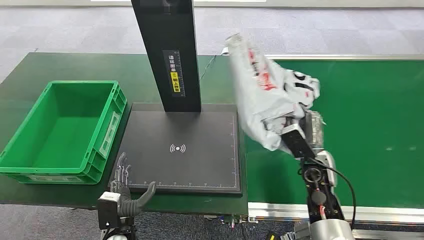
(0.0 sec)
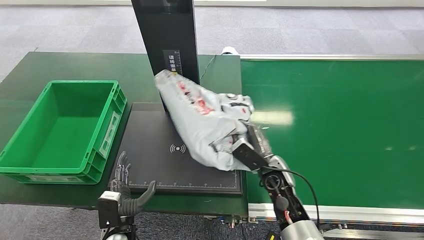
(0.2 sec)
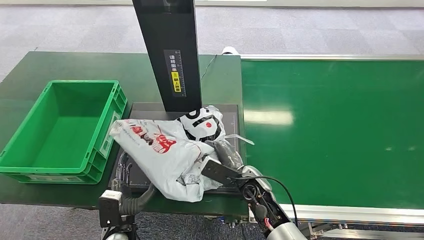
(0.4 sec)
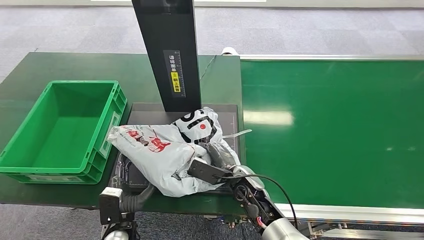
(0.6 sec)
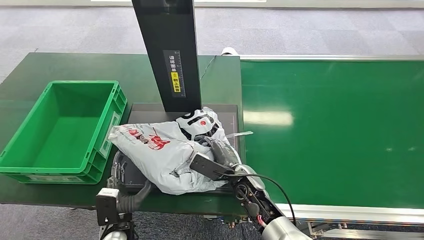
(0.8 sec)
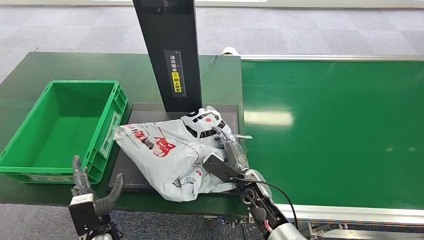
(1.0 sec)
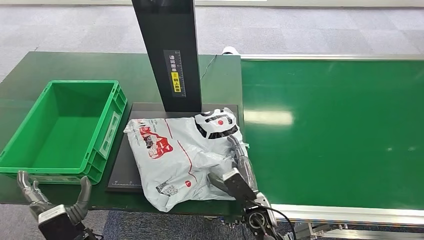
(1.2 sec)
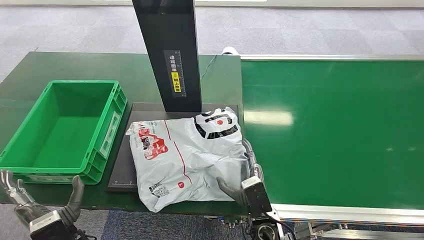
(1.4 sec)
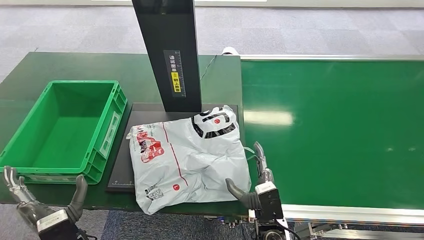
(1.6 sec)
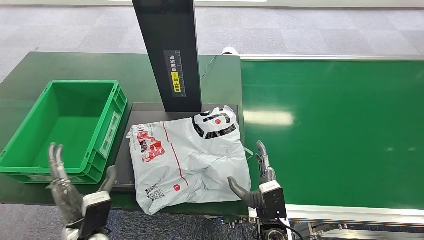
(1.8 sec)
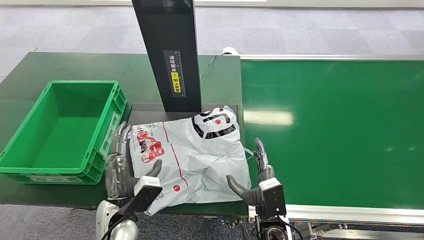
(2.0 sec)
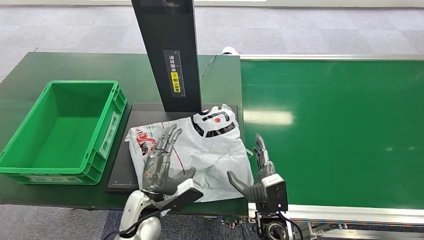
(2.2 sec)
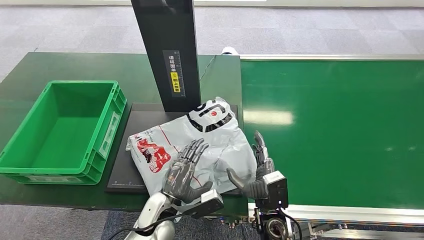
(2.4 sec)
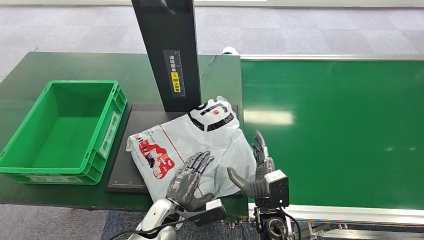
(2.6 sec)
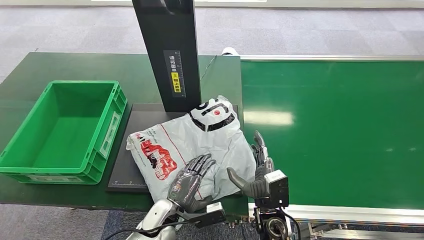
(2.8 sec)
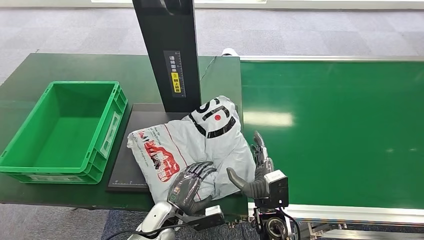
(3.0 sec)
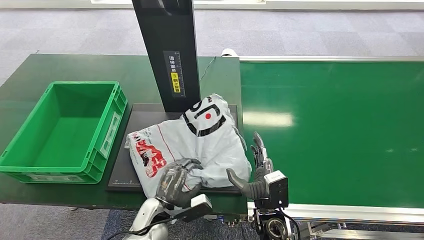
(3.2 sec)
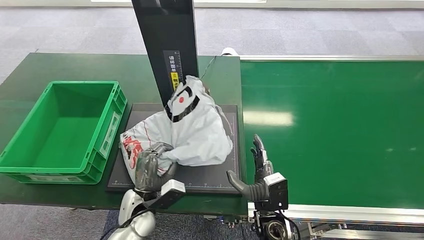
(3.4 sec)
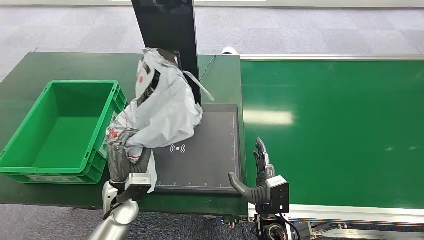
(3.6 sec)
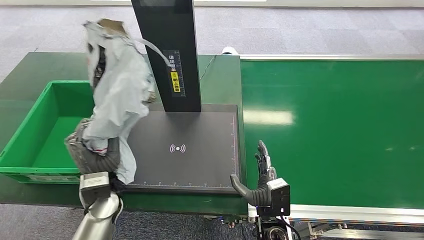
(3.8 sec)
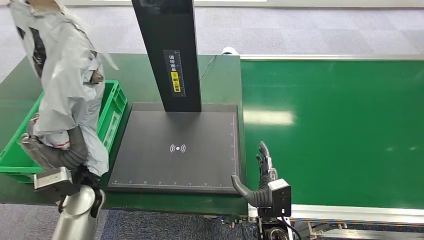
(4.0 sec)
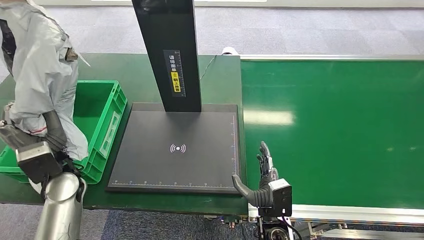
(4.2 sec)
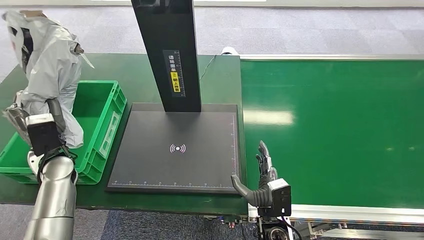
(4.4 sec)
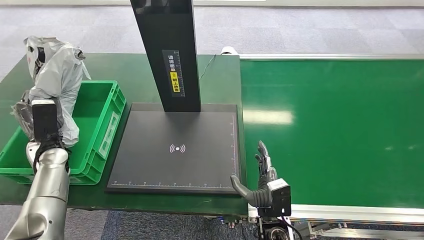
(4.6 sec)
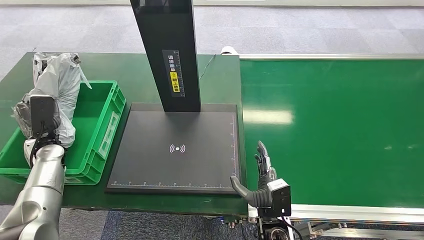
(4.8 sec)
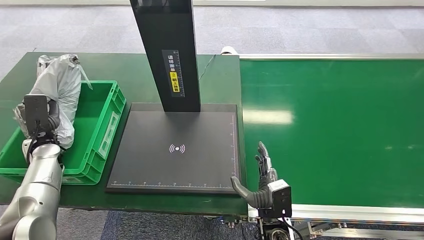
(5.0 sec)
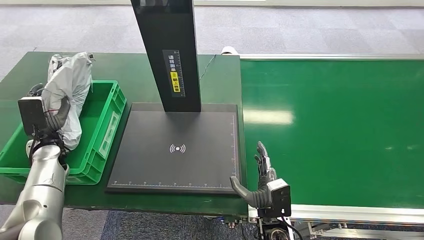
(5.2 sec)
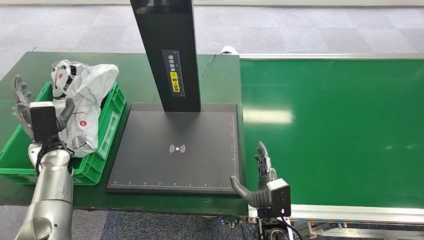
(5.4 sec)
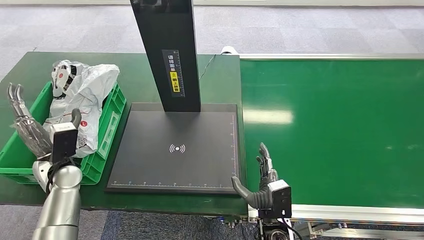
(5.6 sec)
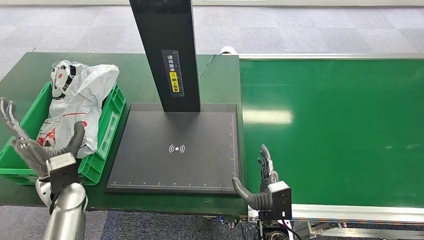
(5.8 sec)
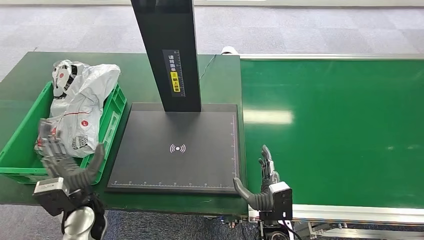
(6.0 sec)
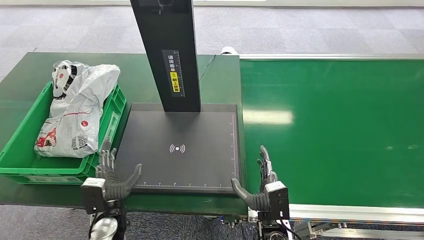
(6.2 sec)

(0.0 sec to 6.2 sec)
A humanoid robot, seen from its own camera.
Step, 4.0 sec - 4.2 sec: Pick up the package from the inbound machine.
1.6 sec - 3.2 sec: The left hand heads to the right, forward and downward, covering about 15 cm.
4.6 sec - 6.2 sec: The left hand moves to the right, backward and downward, some 25 cm.

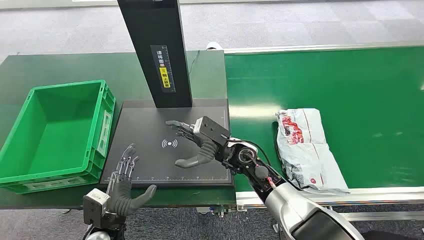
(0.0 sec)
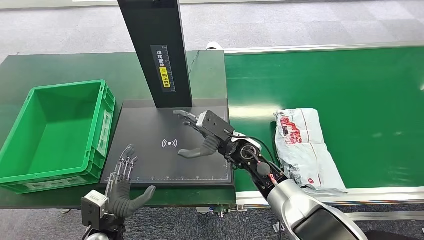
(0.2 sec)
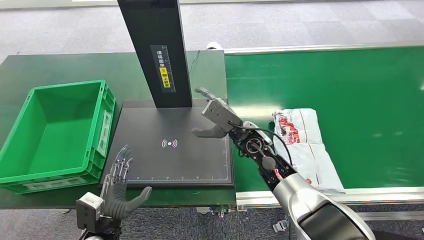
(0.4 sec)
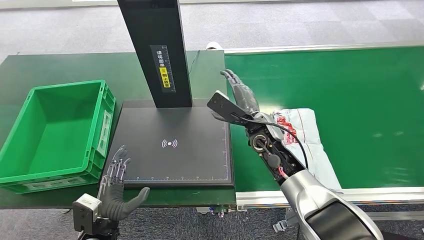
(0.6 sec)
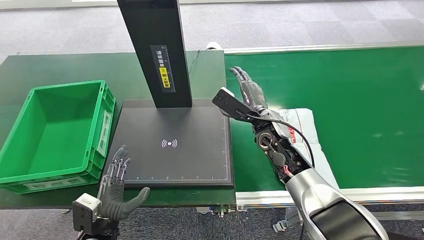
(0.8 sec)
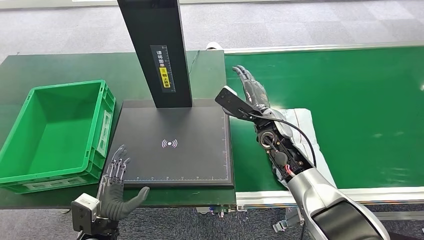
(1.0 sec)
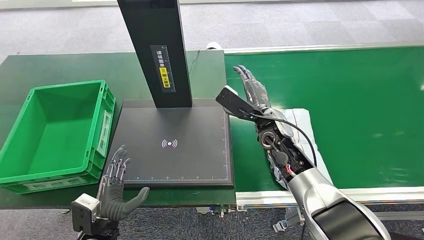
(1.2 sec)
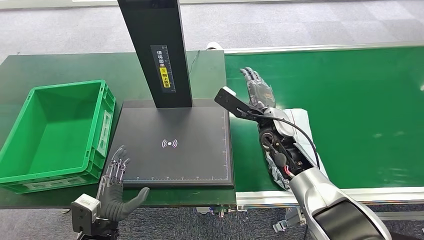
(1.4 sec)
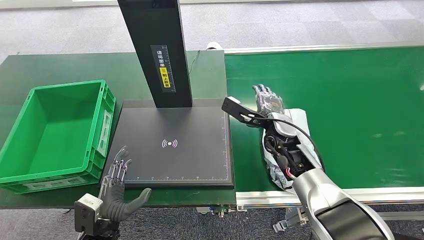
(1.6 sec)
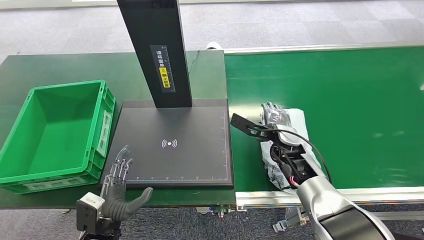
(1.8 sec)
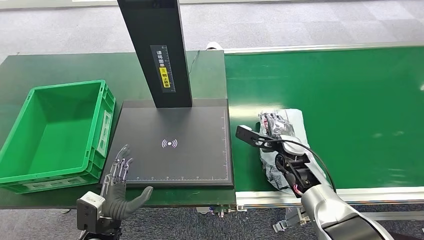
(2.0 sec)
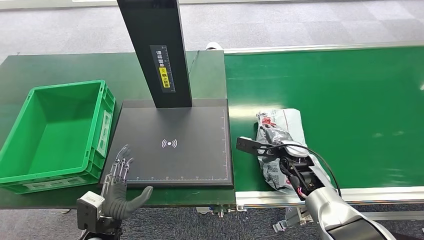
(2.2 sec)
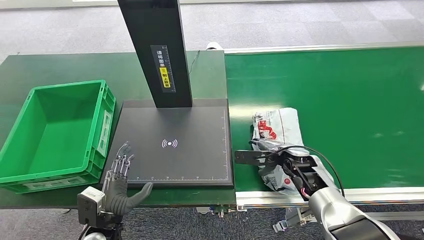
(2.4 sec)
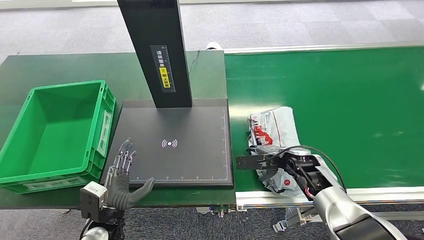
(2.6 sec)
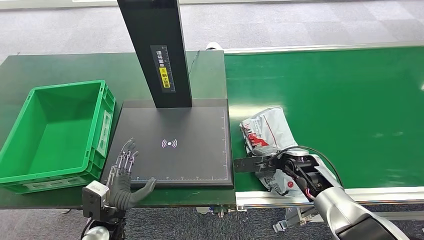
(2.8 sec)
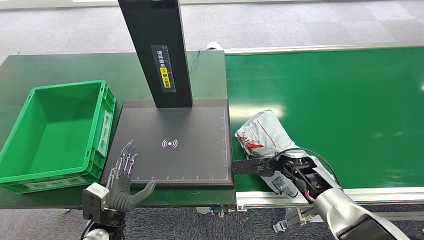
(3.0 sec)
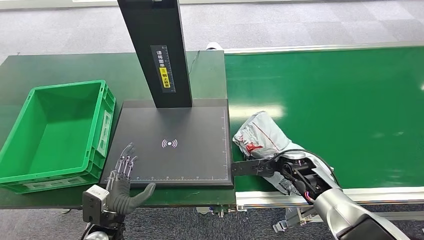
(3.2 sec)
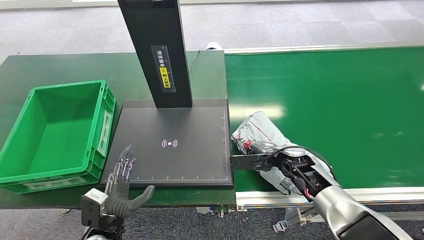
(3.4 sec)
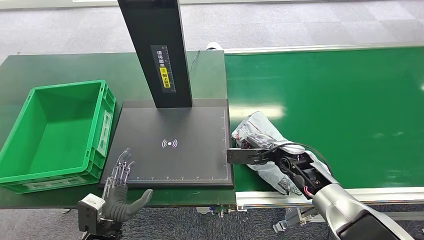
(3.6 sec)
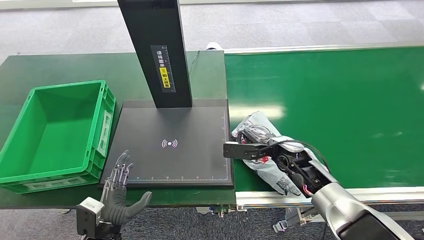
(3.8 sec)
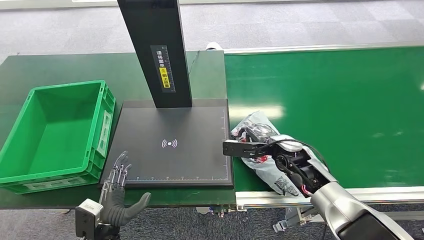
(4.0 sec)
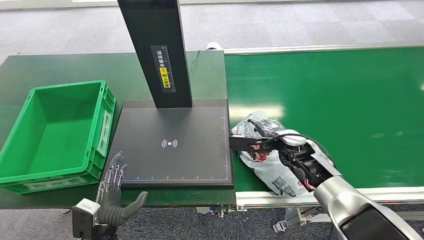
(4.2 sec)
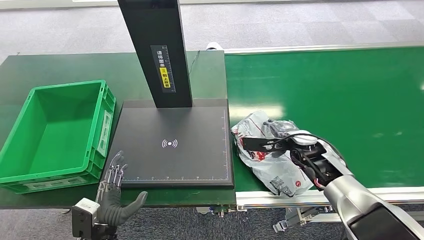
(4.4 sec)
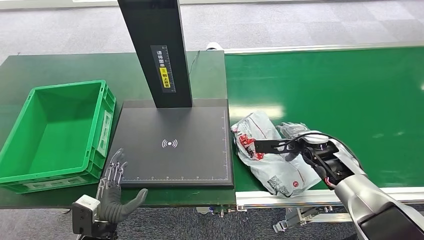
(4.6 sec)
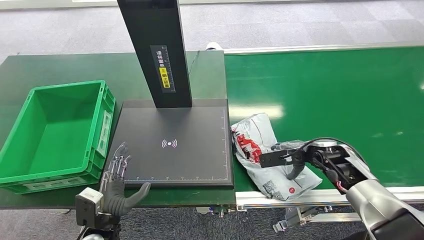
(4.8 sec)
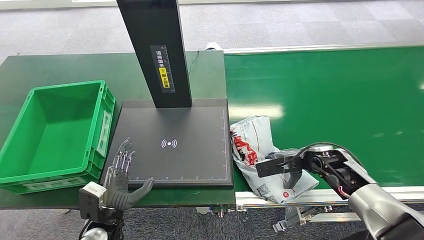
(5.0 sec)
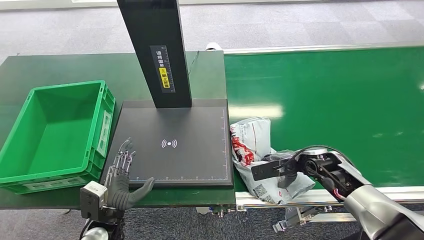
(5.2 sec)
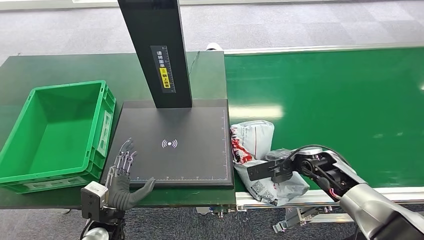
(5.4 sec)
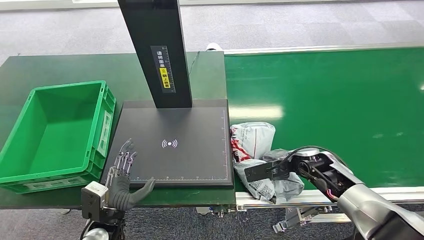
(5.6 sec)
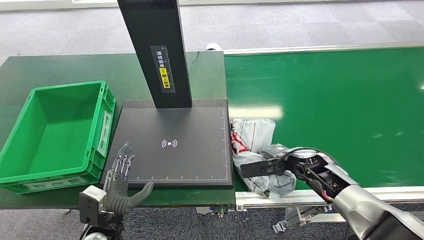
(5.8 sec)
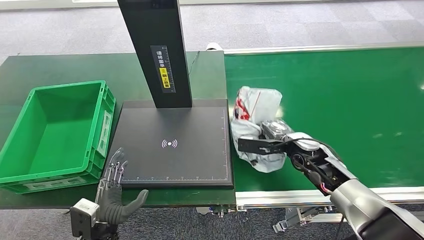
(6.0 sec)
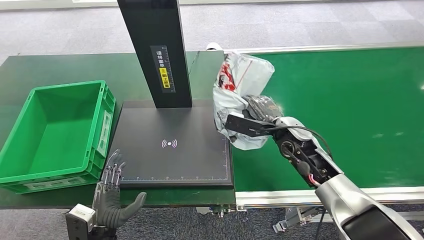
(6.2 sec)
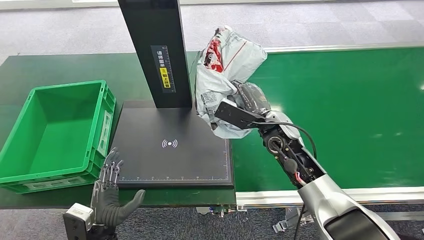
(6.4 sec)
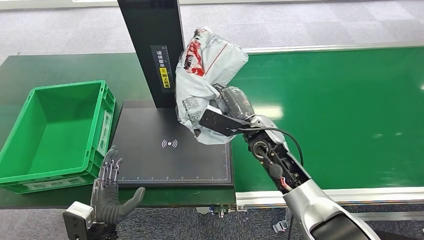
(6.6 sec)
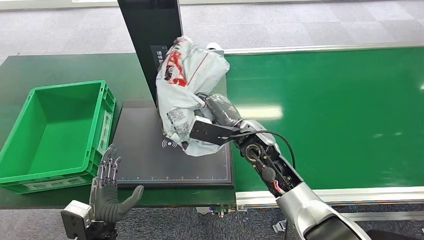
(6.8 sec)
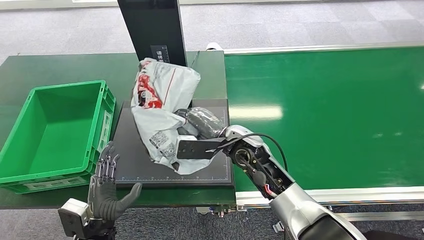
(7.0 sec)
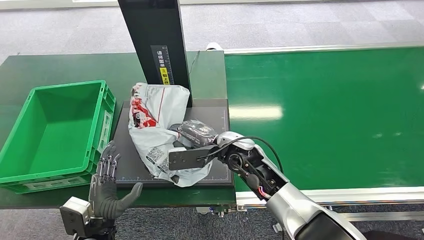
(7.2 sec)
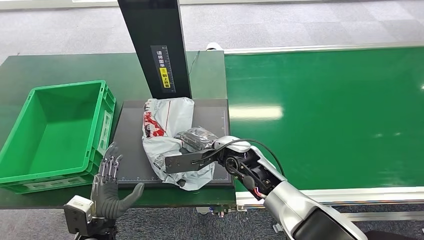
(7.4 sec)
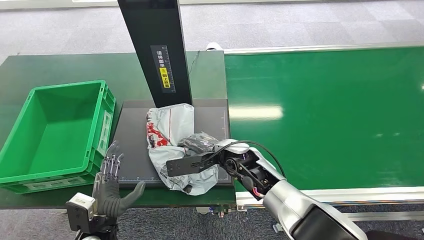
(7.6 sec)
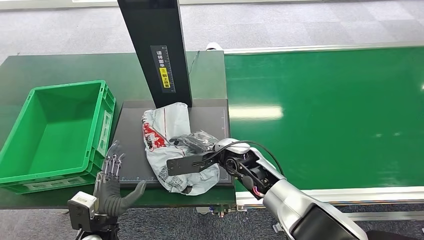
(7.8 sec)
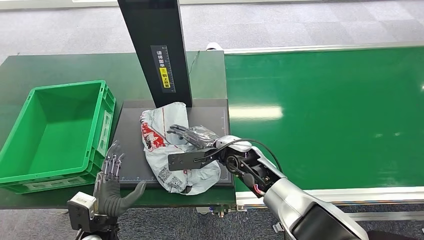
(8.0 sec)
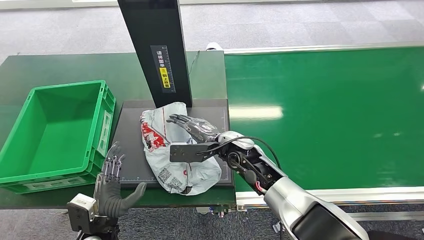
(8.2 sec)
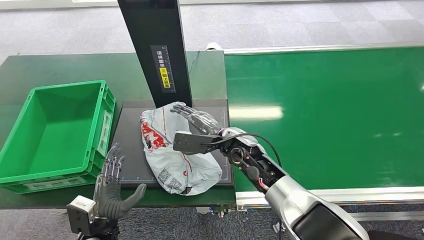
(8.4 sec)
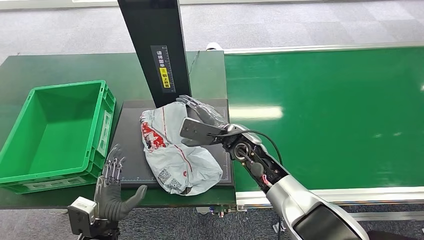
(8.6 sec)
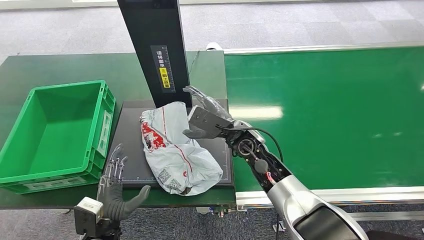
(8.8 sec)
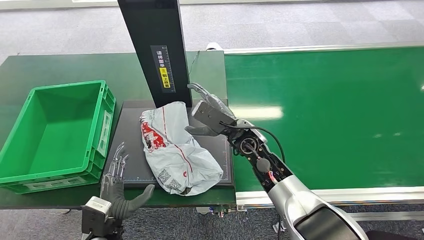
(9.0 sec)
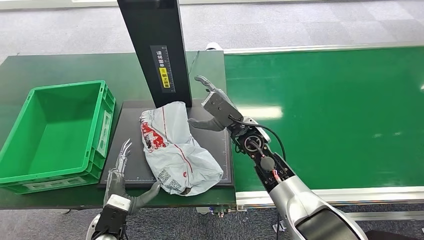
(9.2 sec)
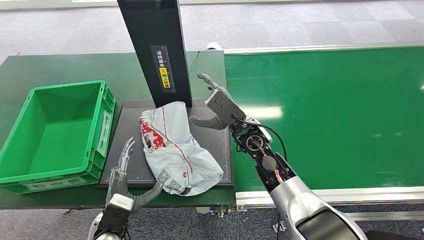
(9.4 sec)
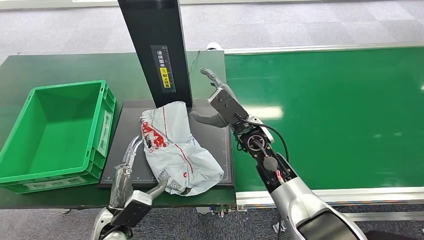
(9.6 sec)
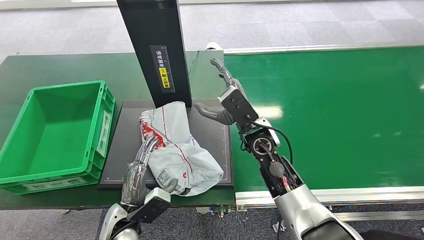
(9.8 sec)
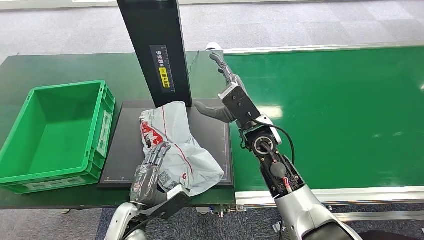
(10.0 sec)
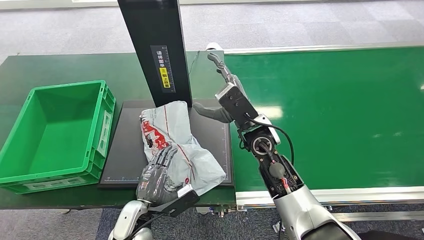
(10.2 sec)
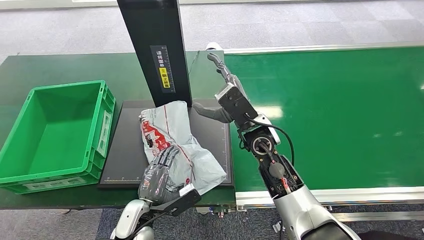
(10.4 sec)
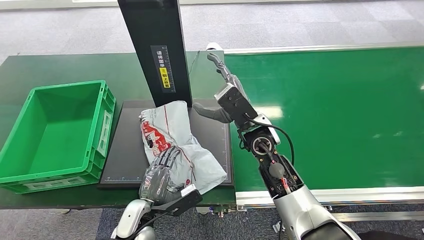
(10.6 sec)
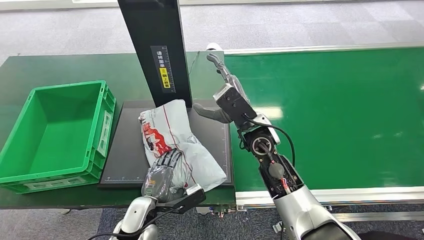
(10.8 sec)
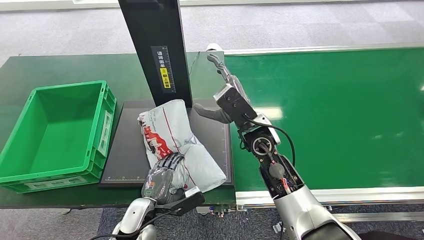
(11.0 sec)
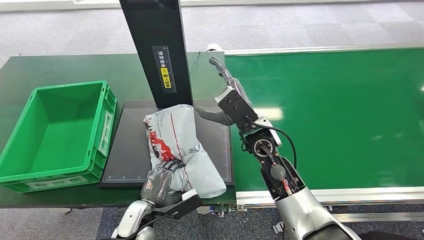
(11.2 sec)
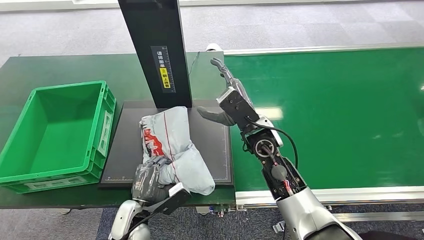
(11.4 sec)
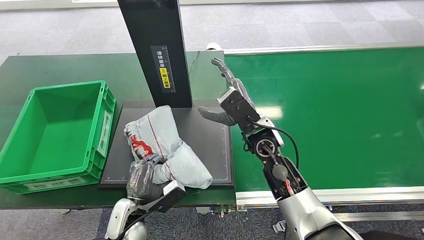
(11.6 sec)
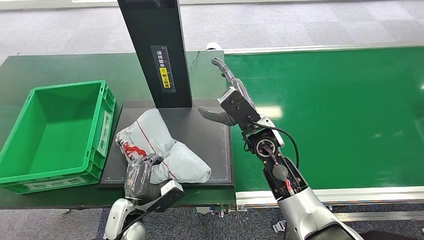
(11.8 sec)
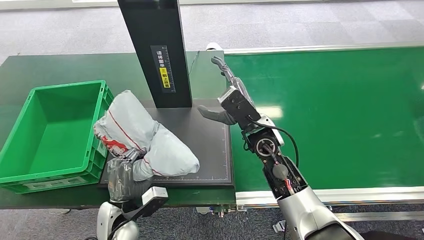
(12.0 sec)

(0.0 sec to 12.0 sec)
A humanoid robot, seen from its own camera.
Step, 0.0 sec - 6.0 sec: Pick up the package from the conveyor belt.
Step, 6.2 sec - 8.6 sec: Place the package onto the inbound machine.
1.6 sec - 3.0 sec: The right hand heads downward, to the right and backward, covering about 15 cm.
3.0 sec - 4.4 sec: The right hand changes place by approximately 5 cm.
6.0 sec - 7.6 sec: The right hand heads to the left, covering approximately 20 cm.
9.0 sec - 10.4 sec: The left hand shifts about 5 cm to the right.
